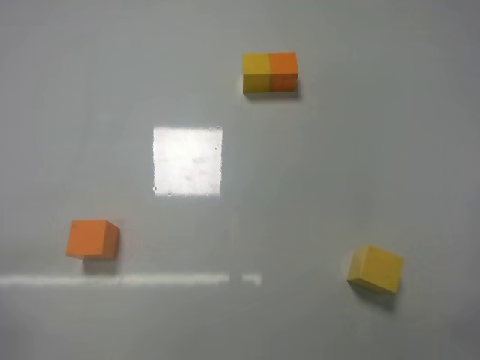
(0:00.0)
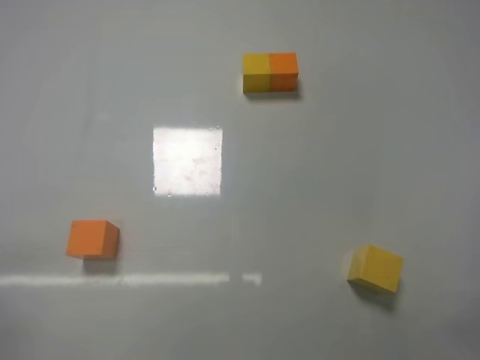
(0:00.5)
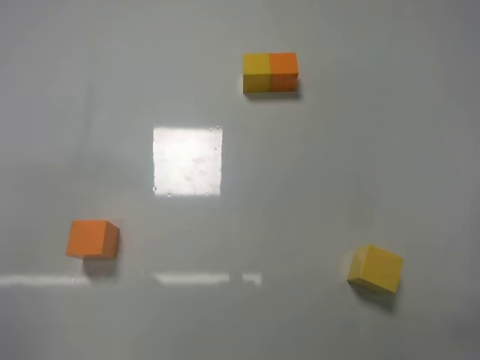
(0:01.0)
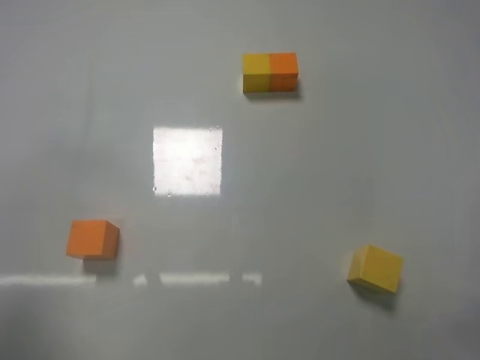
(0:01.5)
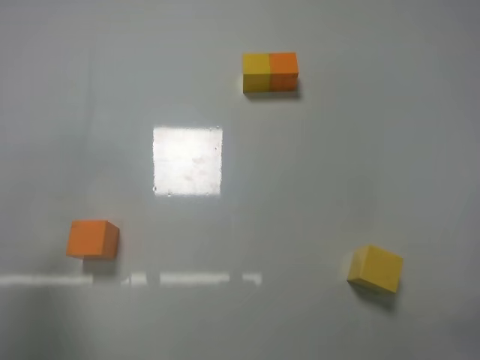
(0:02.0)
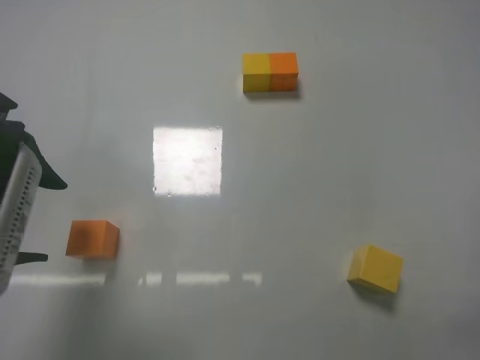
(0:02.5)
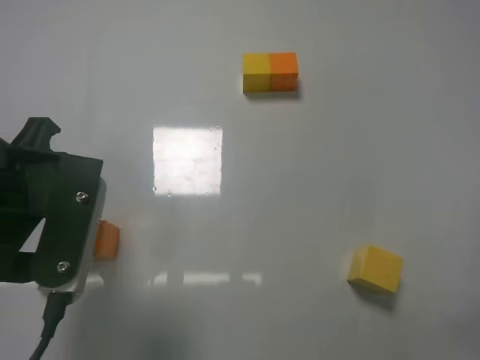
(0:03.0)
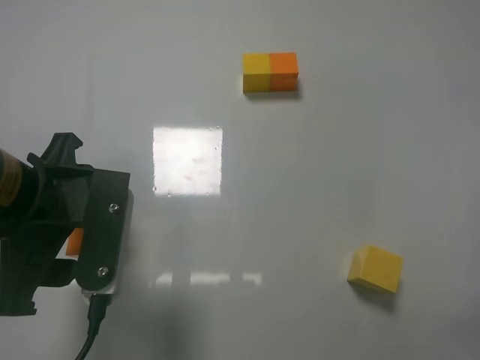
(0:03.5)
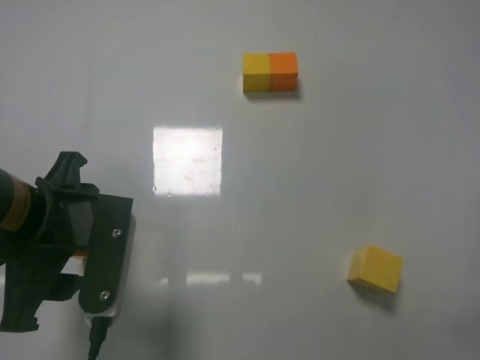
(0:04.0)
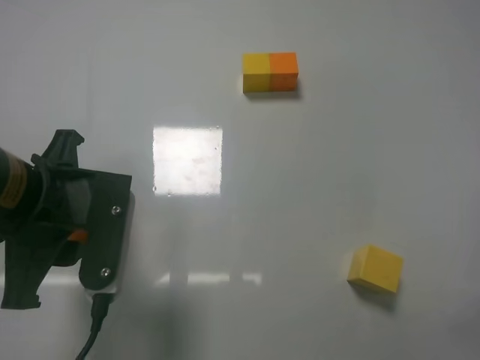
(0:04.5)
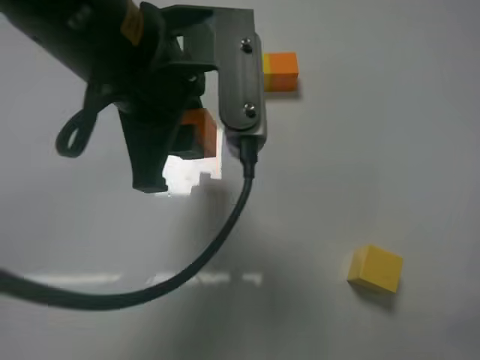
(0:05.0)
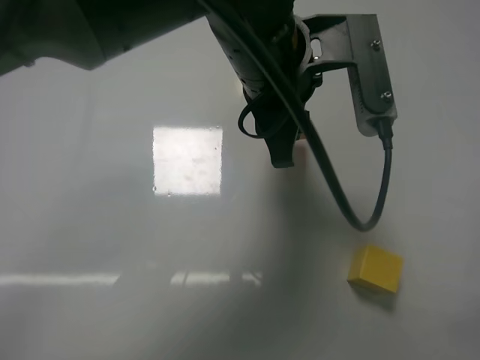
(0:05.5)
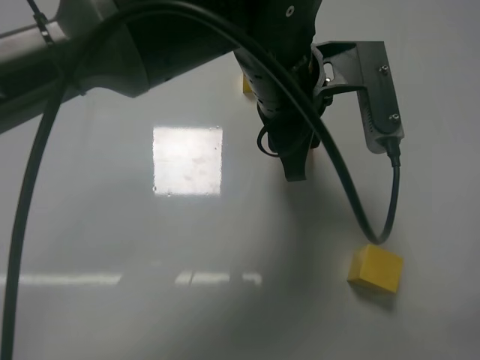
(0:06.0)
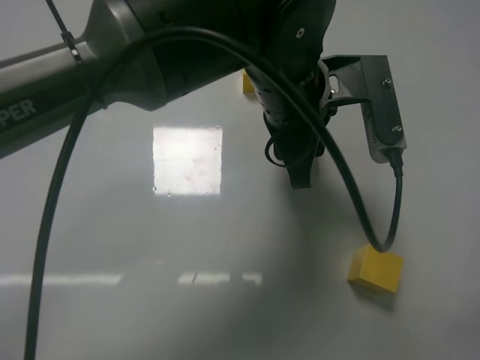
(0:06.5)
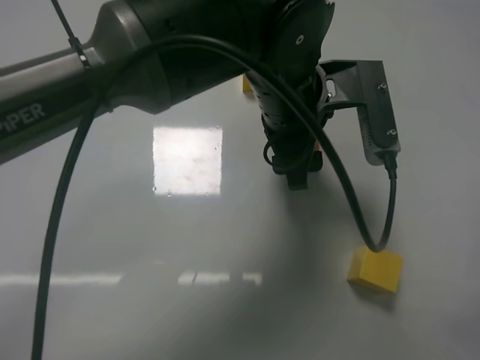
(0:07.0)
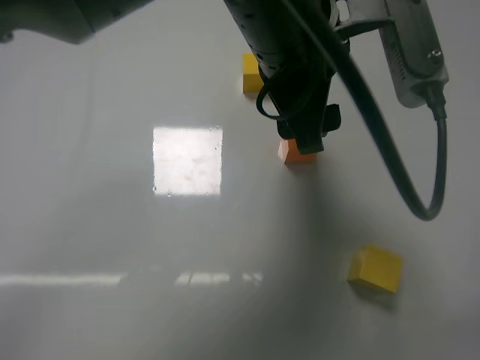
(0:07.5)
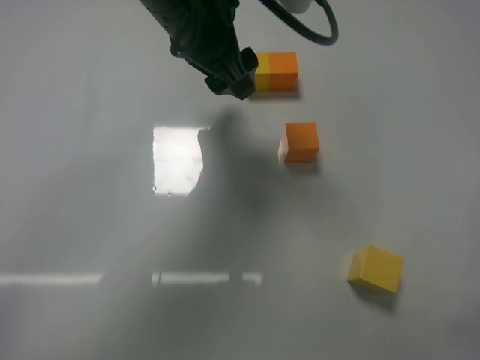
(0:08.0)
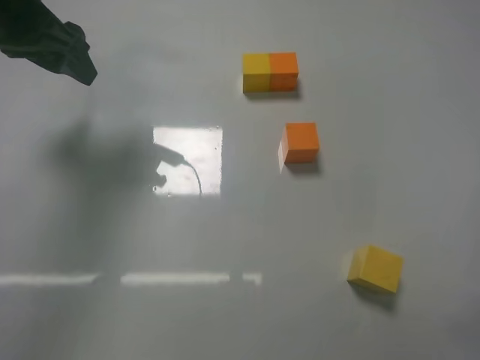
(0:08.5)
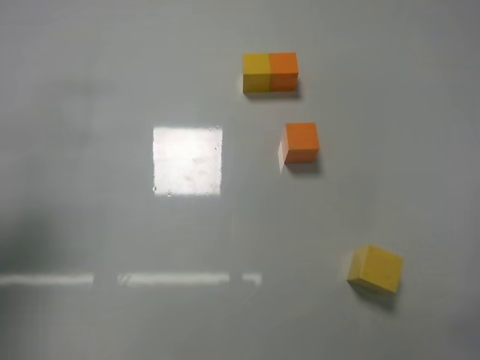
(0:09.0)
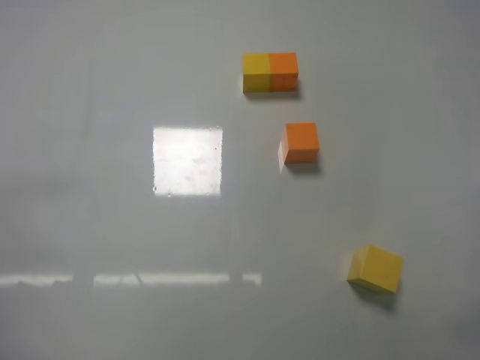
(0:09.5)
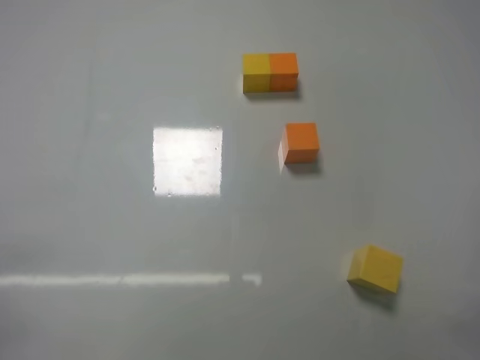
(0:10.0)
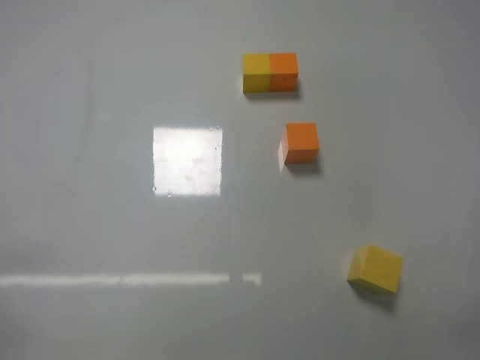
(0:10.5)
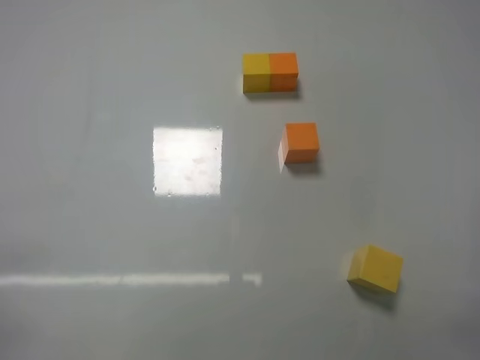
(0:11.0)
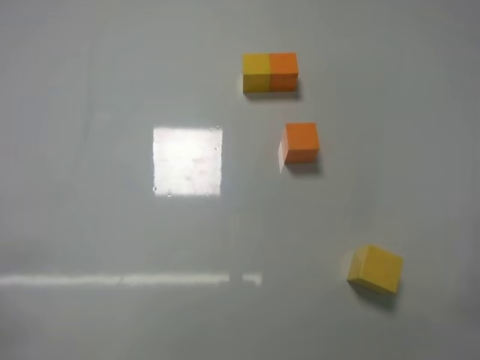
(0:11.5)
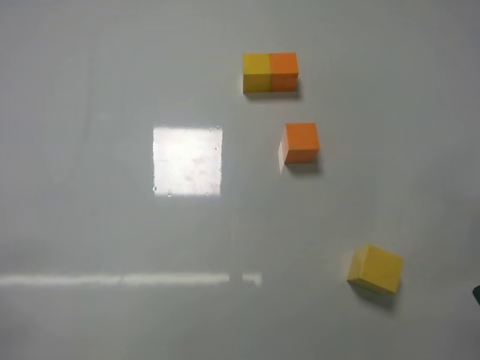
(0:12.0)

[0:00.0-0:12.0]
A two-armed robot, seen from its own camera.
Task of the whole recording: According to the building block template in front, assemble the scattered blocks together.
Step, 0:00.0 to 0:04.0: Grasp the orange block with left gripper.
Step, 0:04.5 to 0:07.0: Adjust the position of the cube with the left gripper.
0:00.0 to 0:02.0: The left gripper moves forward and upward, some 20 cm.
0:02.0 to 0:04.0: The left gripper moves to the right and downward, about 15 cm.
0:04.0 to 0:06.0: The left gripper moves to the right and forward, roughly 25 cm, and closes.
0:06.0 to 0:08.0: The left gripper travels to the left and upward by some 10 cm, and opens up.
0:08.0 to 0:10.0: The left gripper is displaced backward, to the left and downward by roughly 40 cm, and closes its fingers.

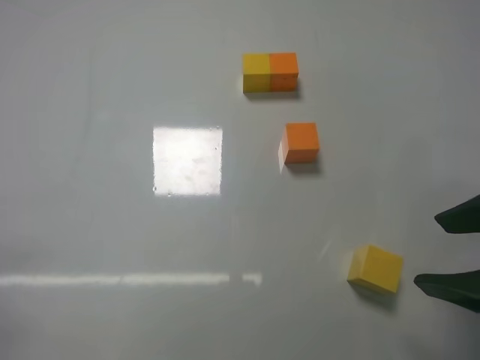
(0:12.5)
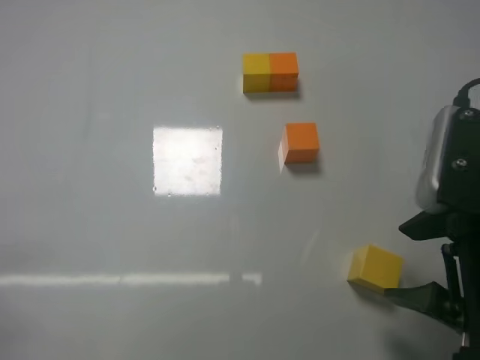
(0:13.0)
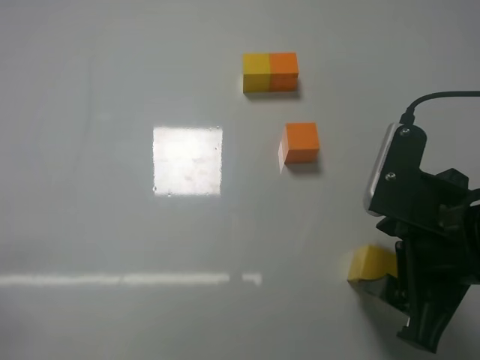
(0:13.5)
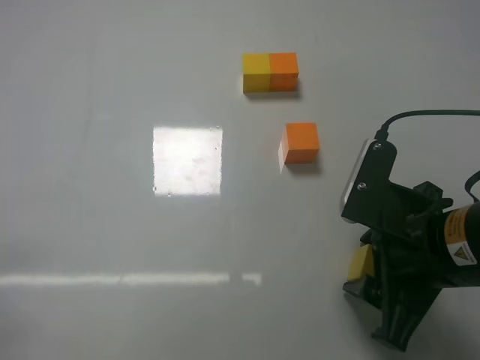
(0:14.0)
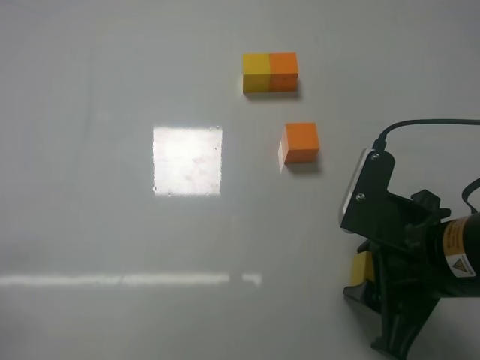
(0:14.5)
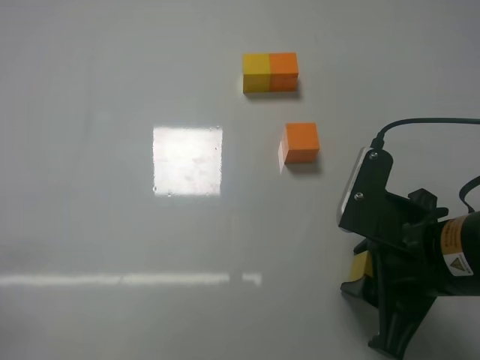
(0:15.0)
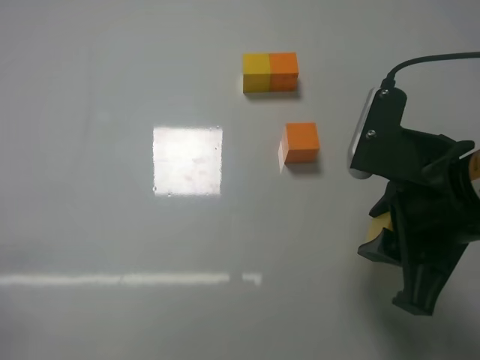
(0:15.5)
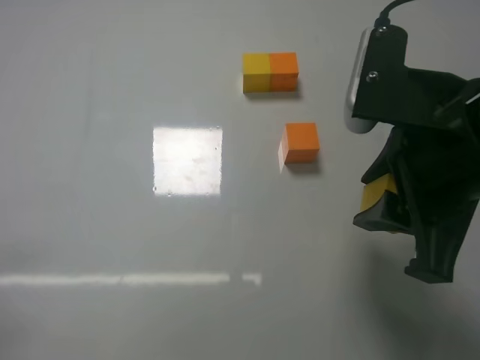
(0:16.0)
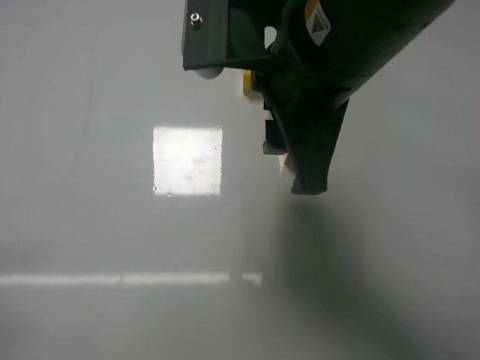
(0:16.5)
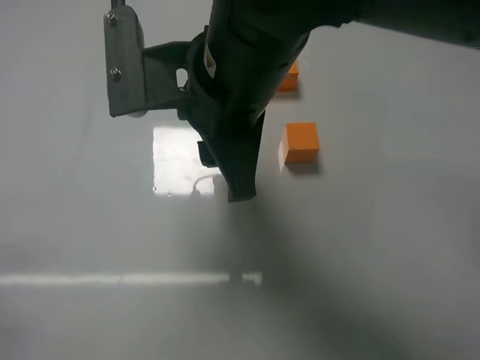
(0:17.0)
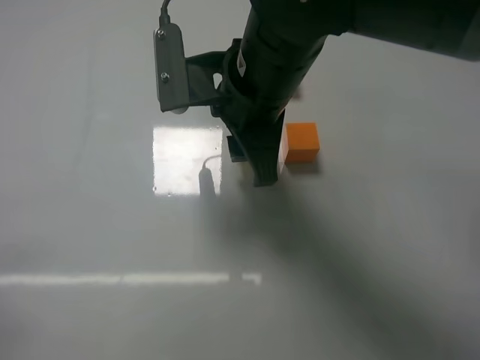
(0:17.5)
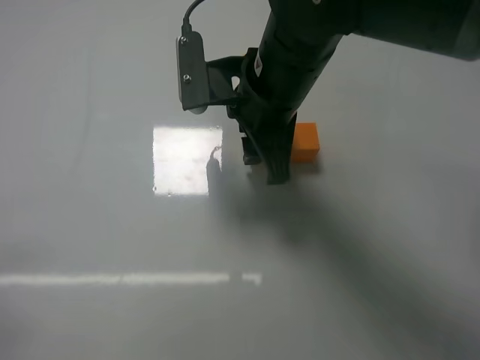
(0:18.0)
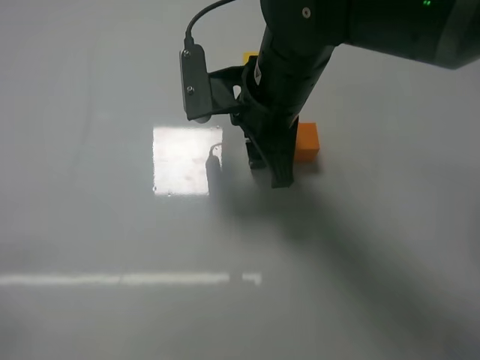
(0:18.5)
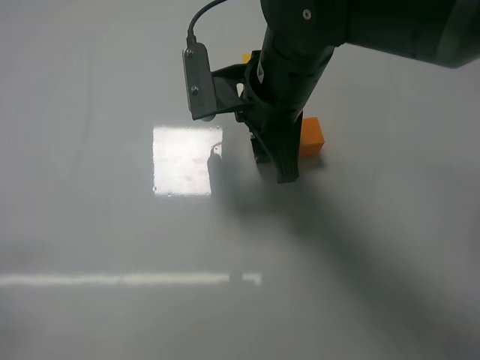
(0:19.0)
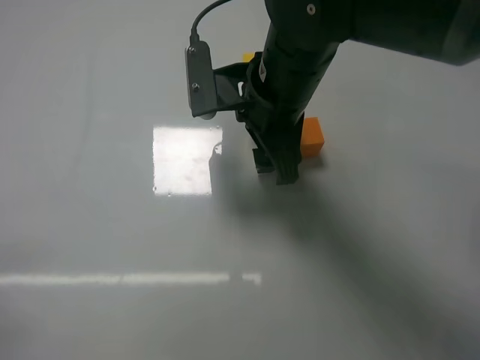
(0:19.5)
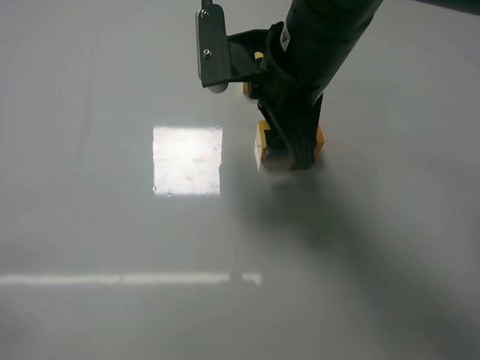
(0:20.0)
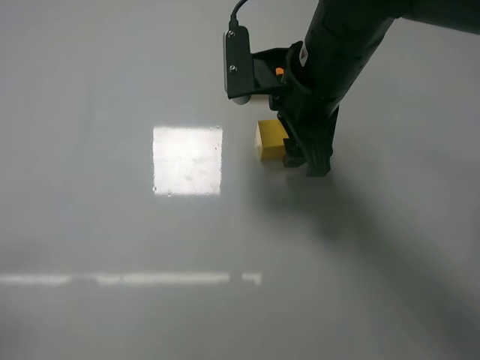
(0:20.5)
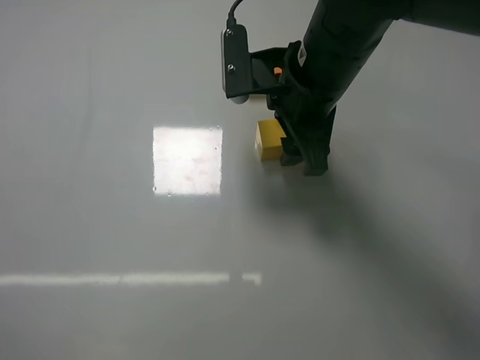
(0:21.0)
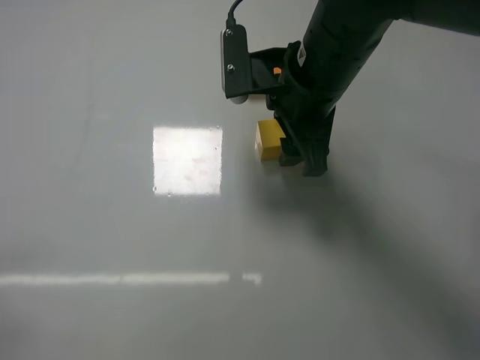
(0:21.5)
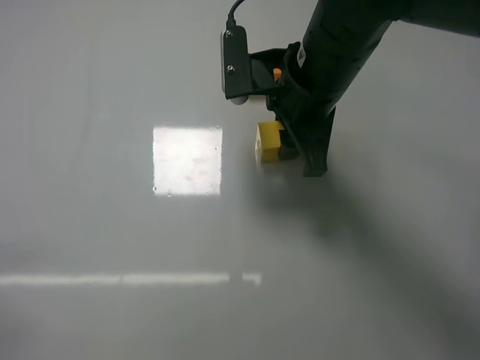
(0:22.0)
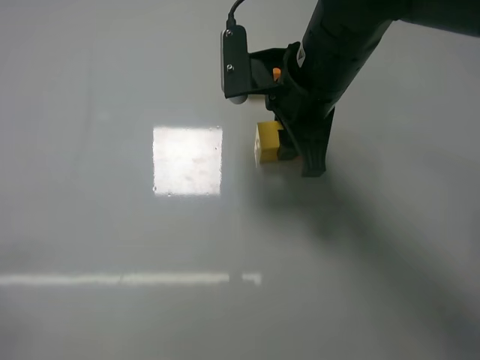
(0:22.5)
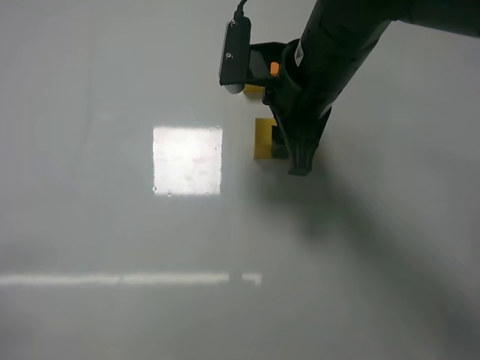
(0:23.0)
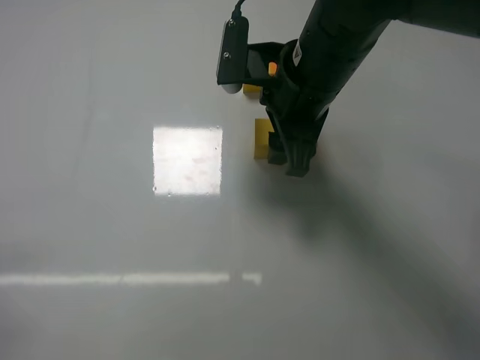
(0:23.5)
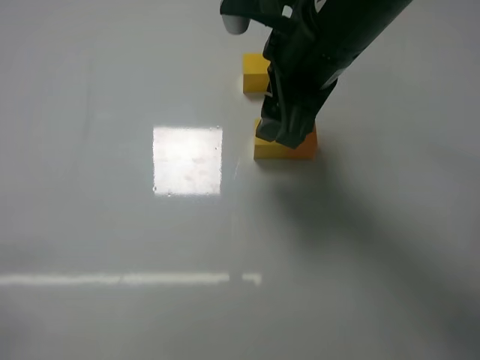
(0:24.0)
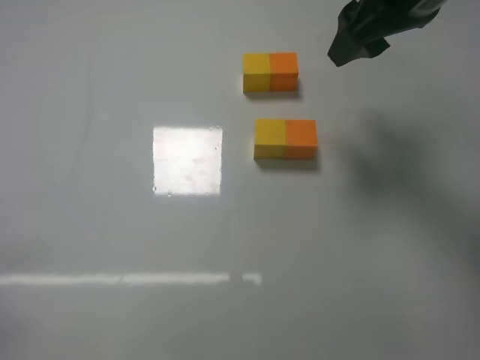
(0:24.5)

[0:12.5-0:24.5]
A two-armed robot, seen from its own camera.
Task of the whole recording: According to the building block template in front, assemble the scattered blocks together.
Step, 0:12.5 to 0:14.5: Grasp the yellow block with right gripper.
Step, 0:15.0 to 0:19.5: Put the yellow cube on the left of the orange cube with the right gripper.
Step, 0:20.0 to 0:23.5: Put the yellow cube and orange cube in the center of the table with the right gripper.
0:12.5 to 0:14.5: The right gripper shifts approximately 10 cm to the left and downward, and closes.
0:14.5 to 0:16.5: The right gripper shifts about 20 cm upward and to the left.
0:16.5 to 0:18.5: The right gripper is displaced forward and downward by about 10 cm.
0:18.5 to 0:20.5: The right gripper opens.
0:20.5 to 0:22.5: The right gripper closes its fingers.
0:22.5 to 0:24.5: The right gripper heads to the right and upward, covering some 15 cm, and opens its fingers.

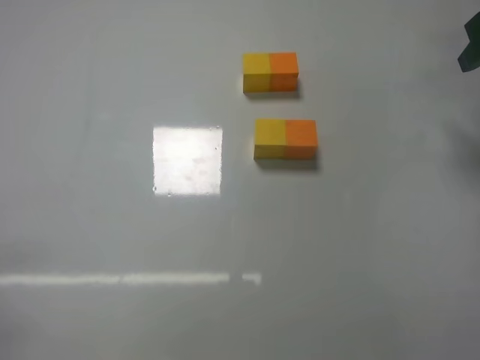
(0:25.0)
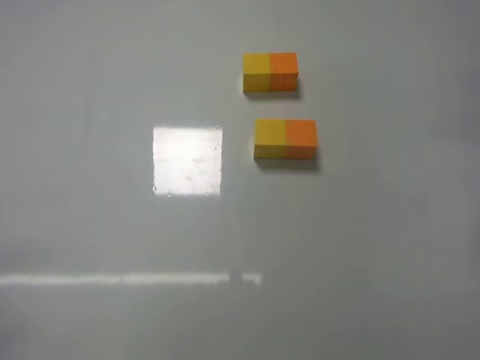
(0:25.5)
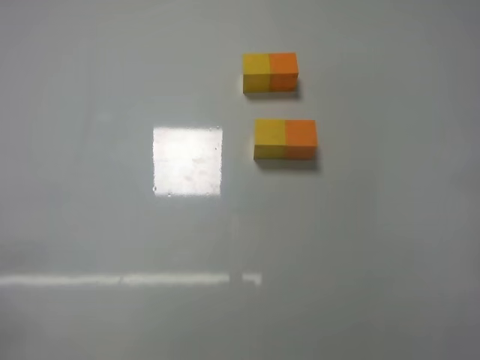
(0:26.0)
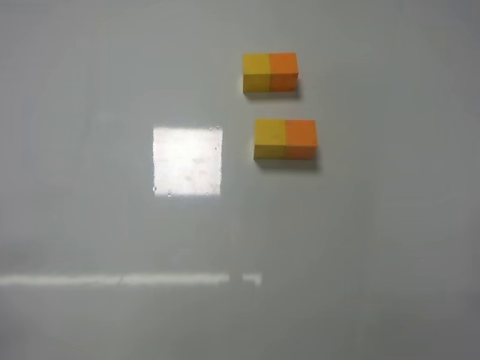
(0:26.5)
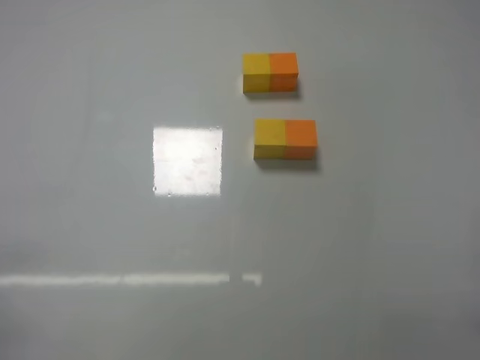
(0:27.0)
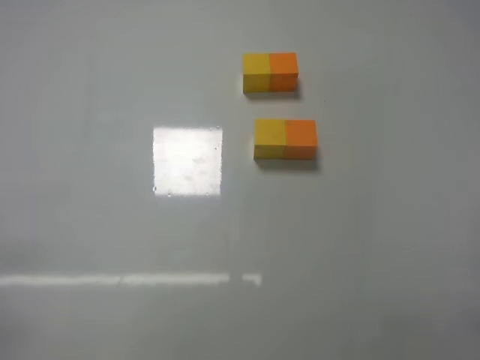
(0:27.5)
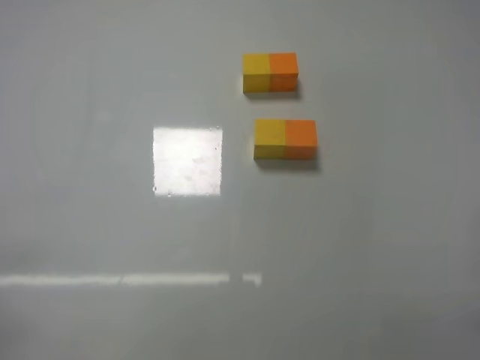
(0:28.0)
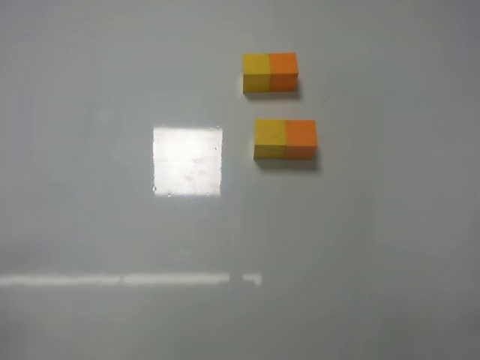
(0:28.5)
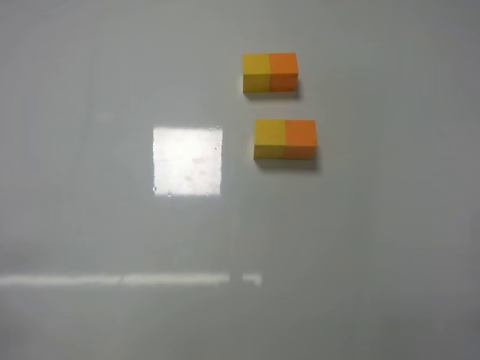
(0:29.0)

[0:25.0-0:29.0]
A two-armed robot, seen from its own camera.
Task of the whole recording: According to the building block template in front, assemble the scattered blocks together.
0:25.0 to 0:27.0: The right gripper is displaced backward and downward by about 35 cm.
0:27.0 to 0:29.0: Both grippers stay about where they are.
